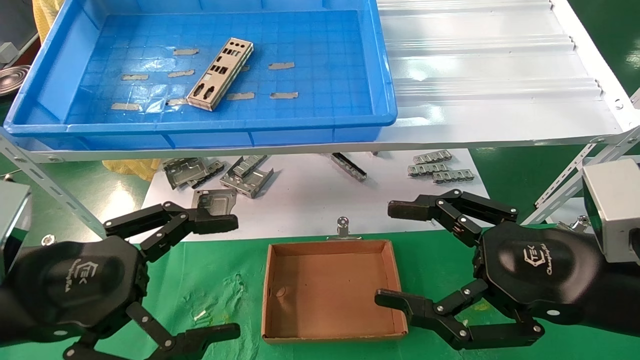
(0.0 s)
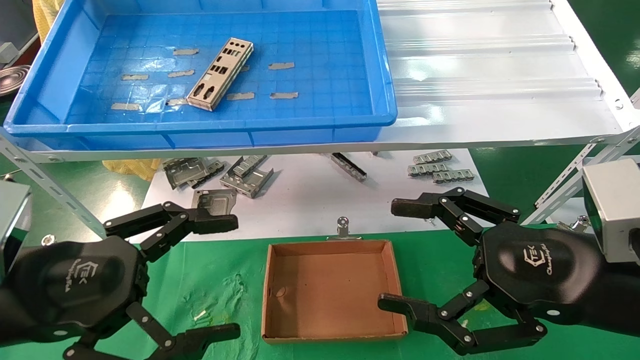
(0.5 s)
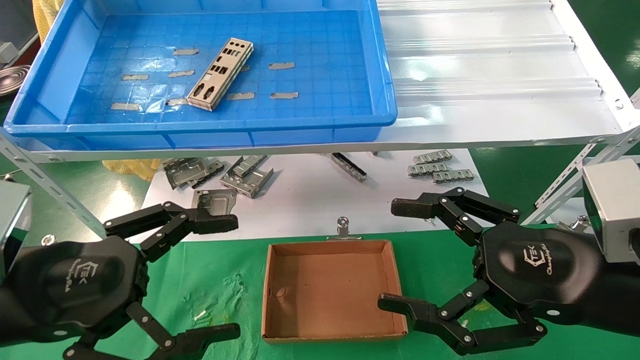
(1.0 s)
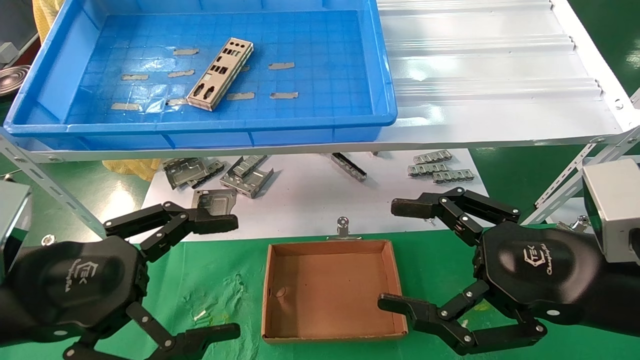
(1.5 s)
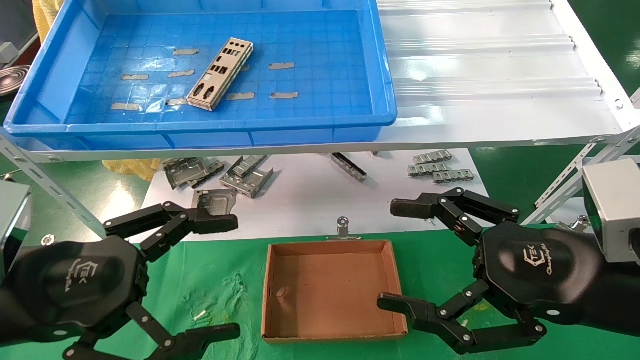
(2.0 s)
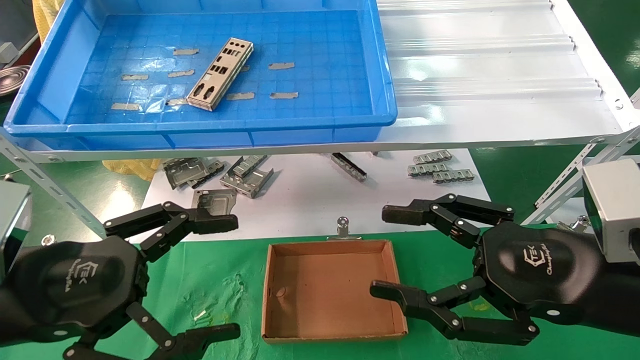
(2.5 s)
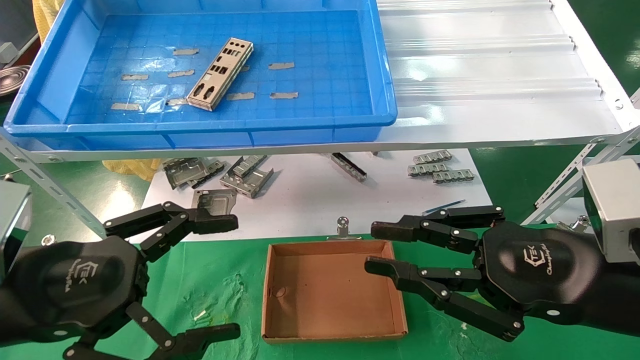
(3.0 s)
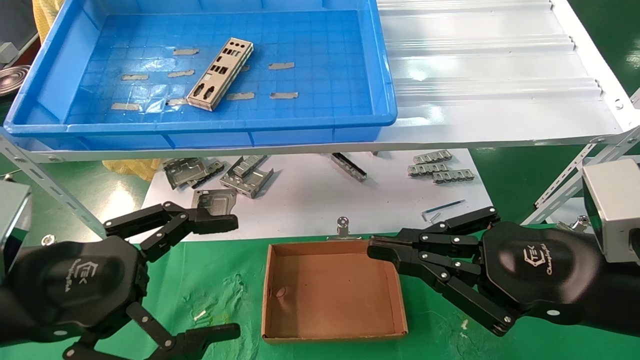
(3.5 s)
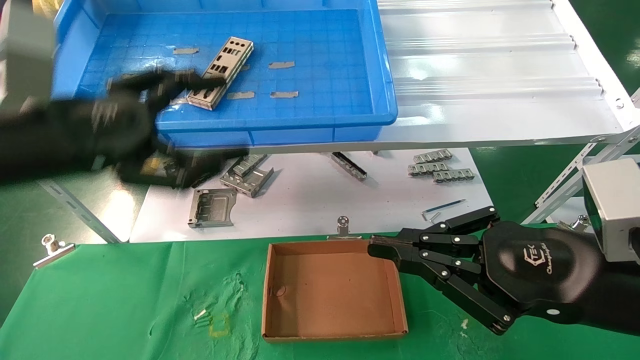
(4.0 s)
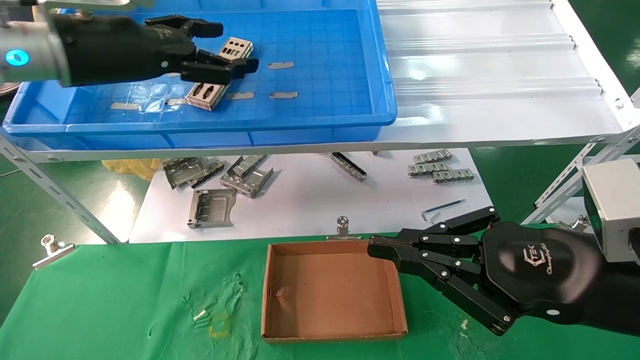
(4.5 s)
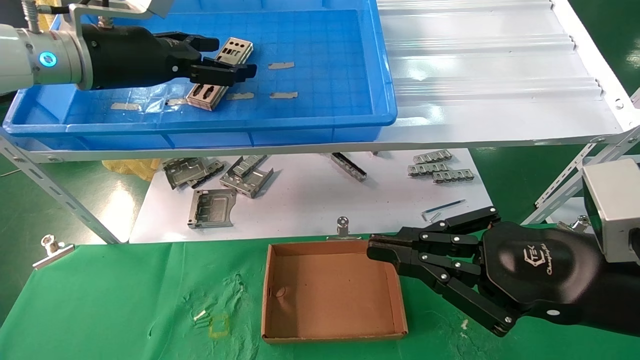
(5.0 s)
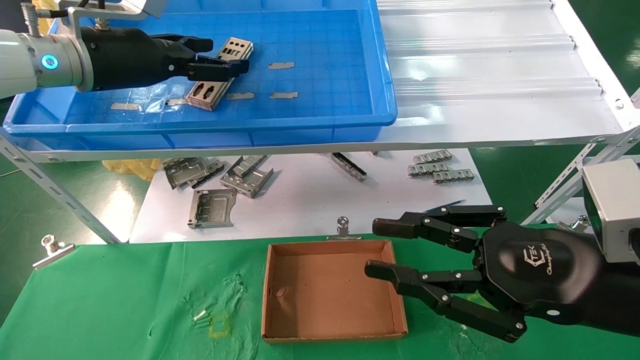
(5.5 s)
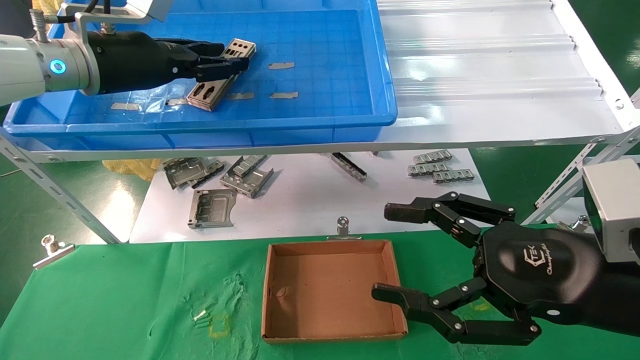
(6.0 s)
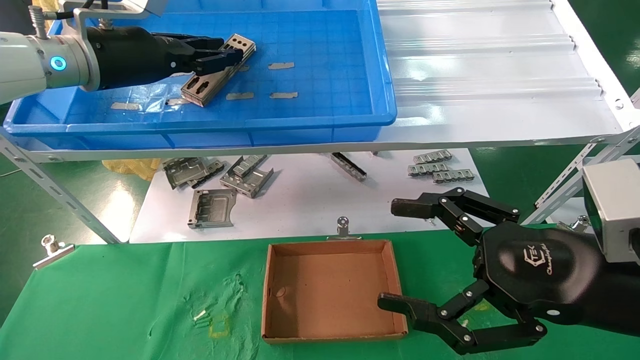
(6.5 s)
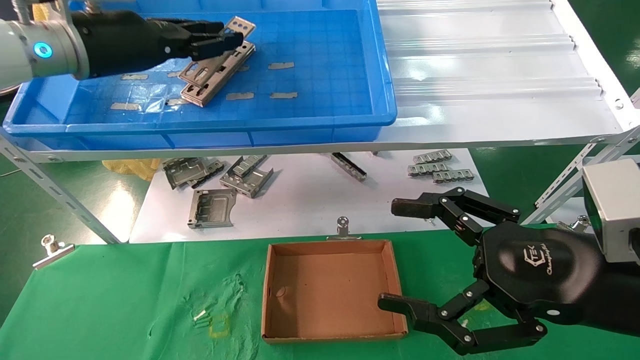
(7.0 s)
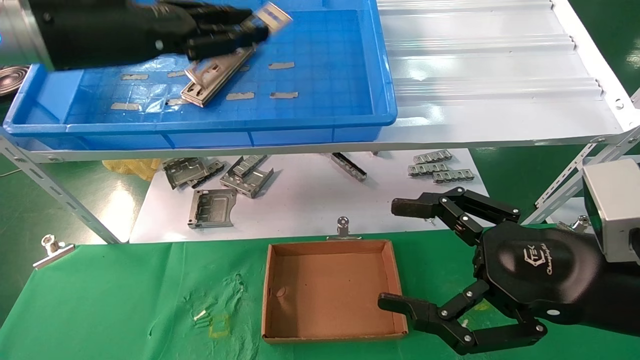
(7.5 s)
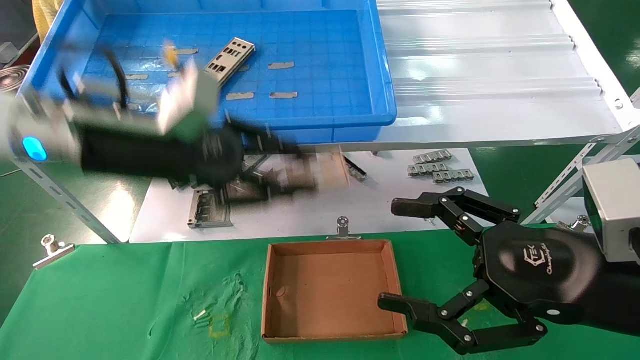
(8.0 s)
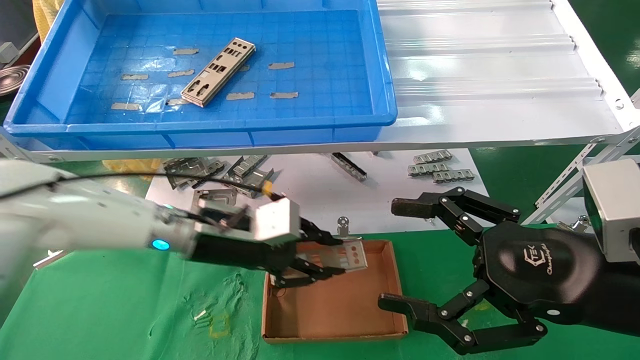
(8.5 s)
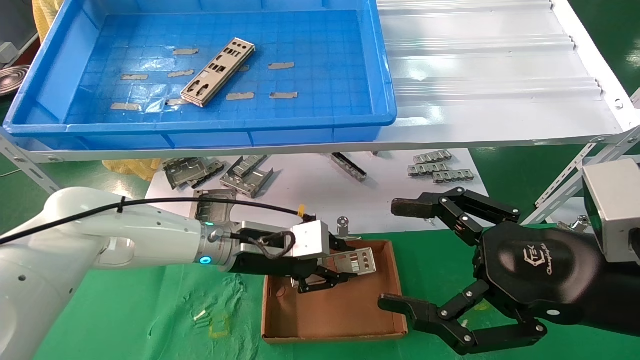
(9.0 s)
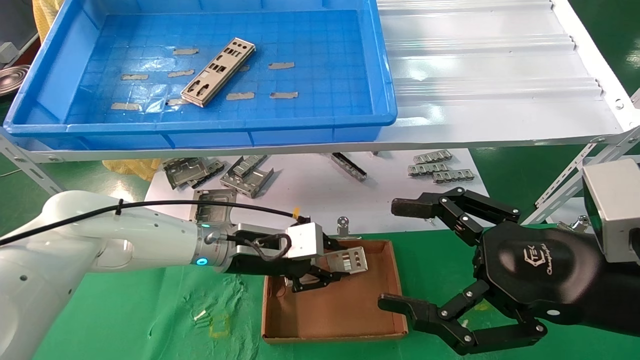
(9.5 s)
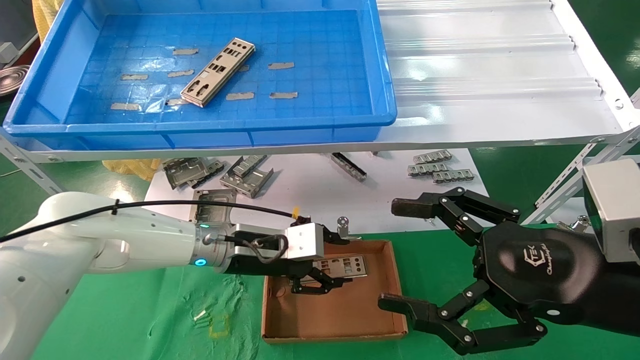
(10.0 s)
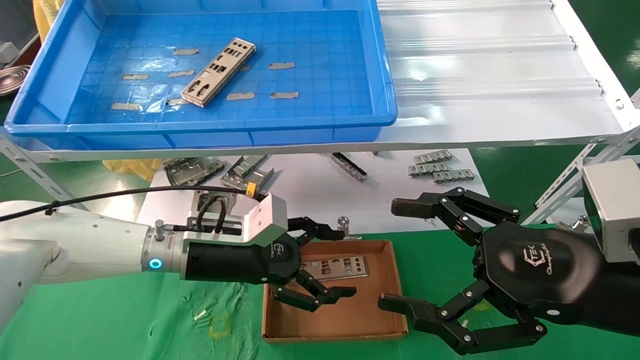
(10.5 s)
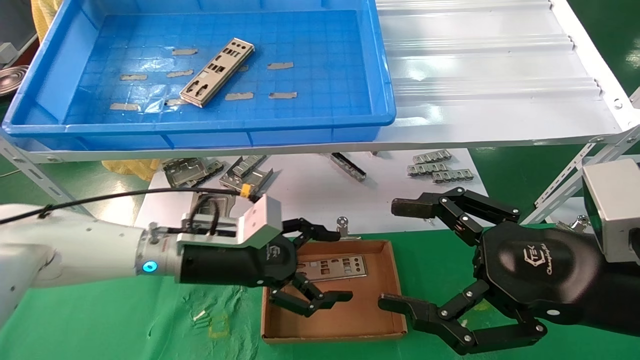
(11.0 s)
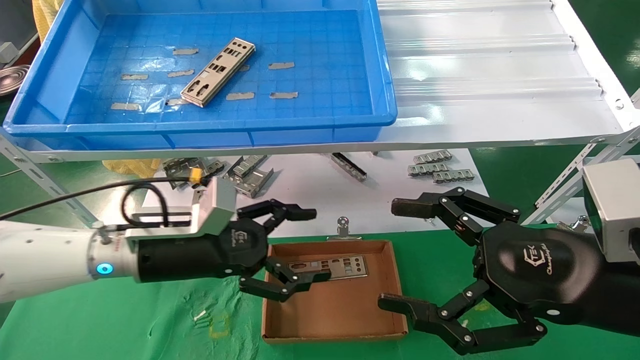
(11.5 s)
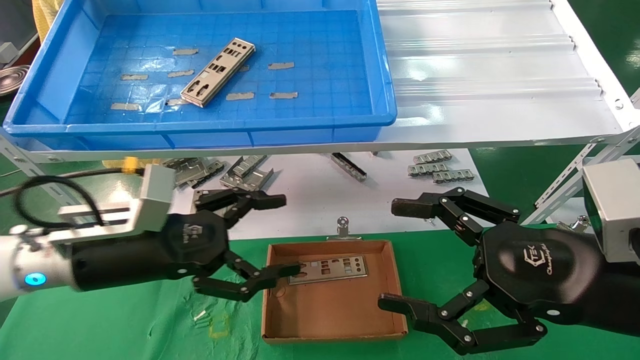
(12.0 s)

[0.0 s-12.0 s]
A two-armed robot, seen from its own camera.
Task of the whole recording: pick up the parts on the tray and put them in the cardboard box.
Step, 4.0 to 6.0 s: Pick up the IO bracket from the container box.
Step, 6.5 to 9.5 s: Place the IO bracket into the ingredient slot.
0.0 to 2.0 s: Neither gripper changes place.
2.0 to 4.0 s: The right gripper closes. Meanwhile the left gripper travels upward and forward by some 15 cm.
4.0 to 6.0 s: The right gripper opens, while the left gripper heads forward and upward, covering approximately 15 cm, and closes up.
6.0 to 8.0 s: The left gripper shifts some 15 cm backward, downward and to the right, and closes its fingers.
8.0 to 10.0 s: The left gripper moves downward, to the right and forward, some 20 cm.
10.0 to 12.0 s: The left gripper travels to the left, backward and upward by roughly 15 cm, and opens its fingers.

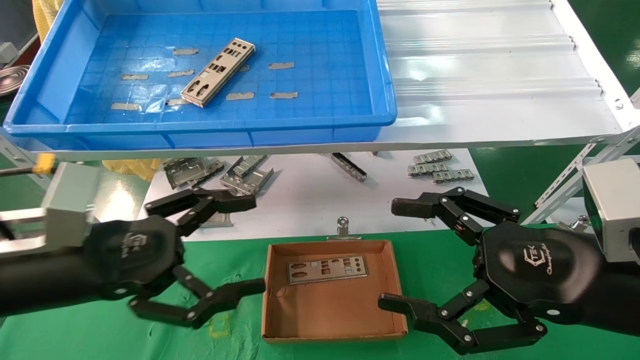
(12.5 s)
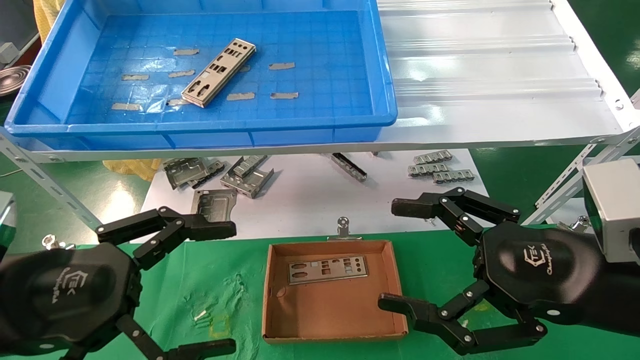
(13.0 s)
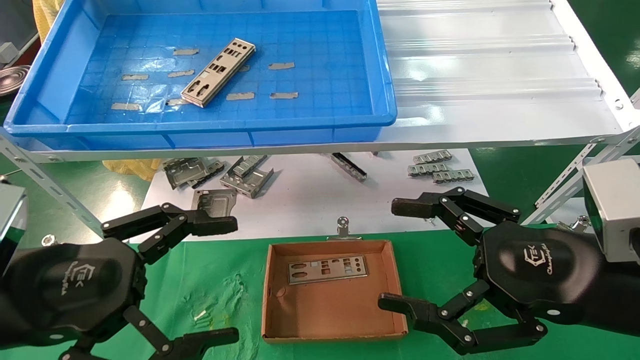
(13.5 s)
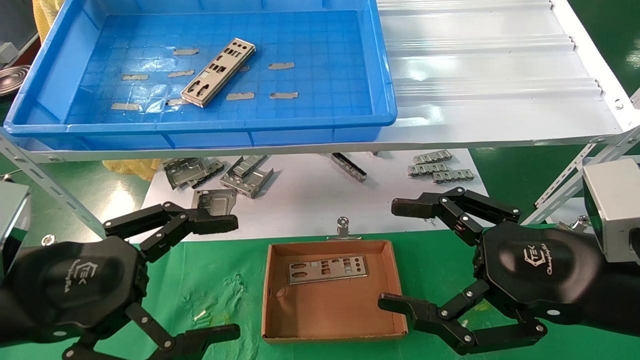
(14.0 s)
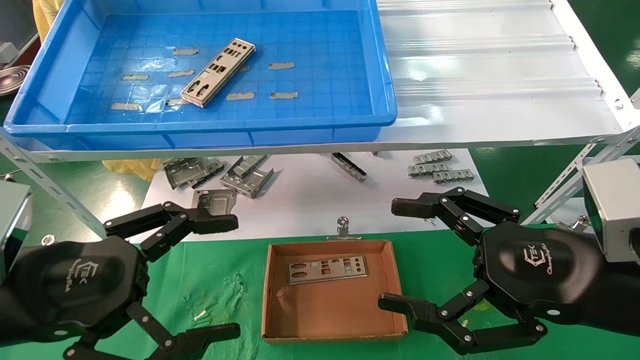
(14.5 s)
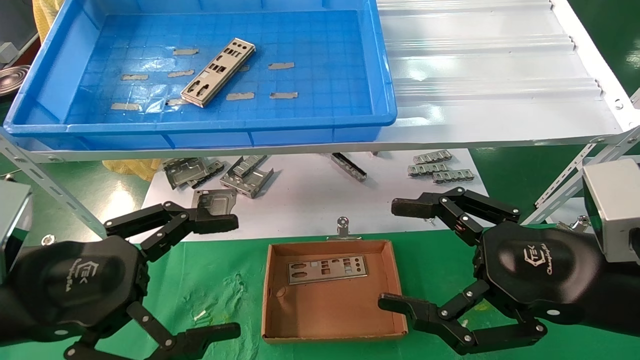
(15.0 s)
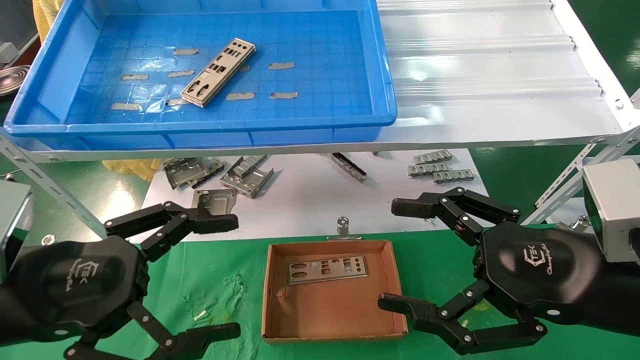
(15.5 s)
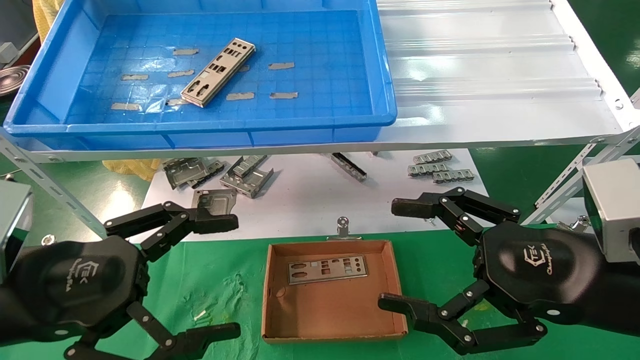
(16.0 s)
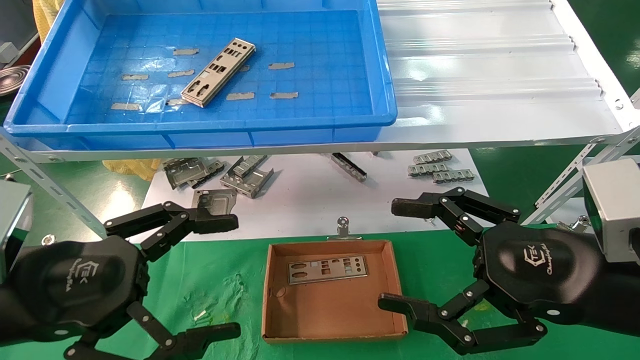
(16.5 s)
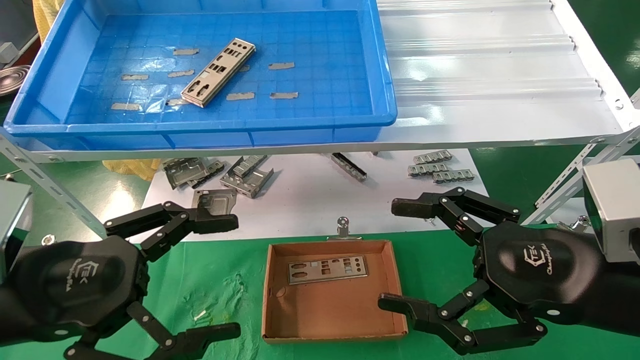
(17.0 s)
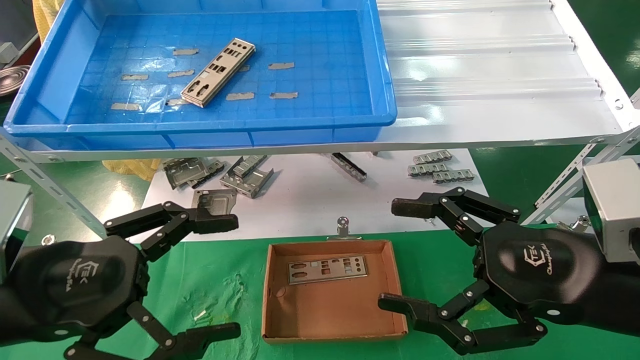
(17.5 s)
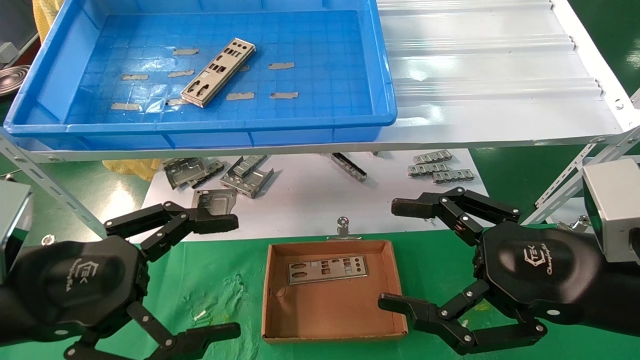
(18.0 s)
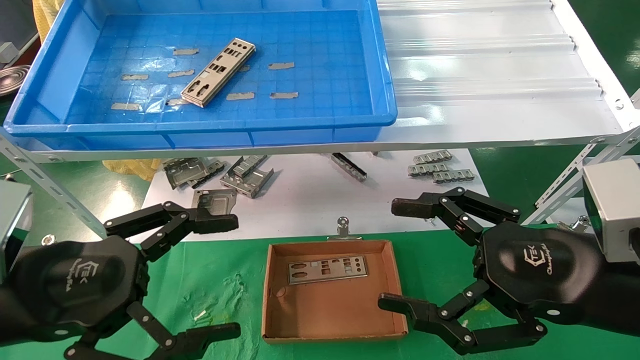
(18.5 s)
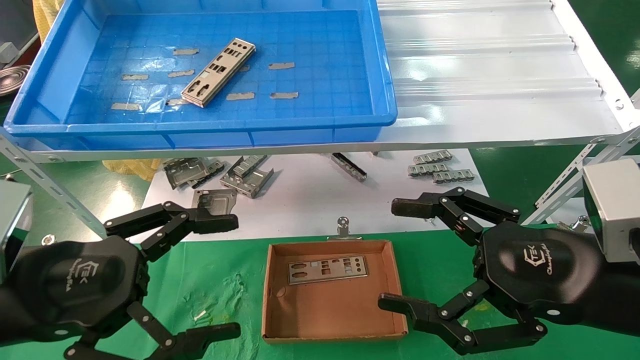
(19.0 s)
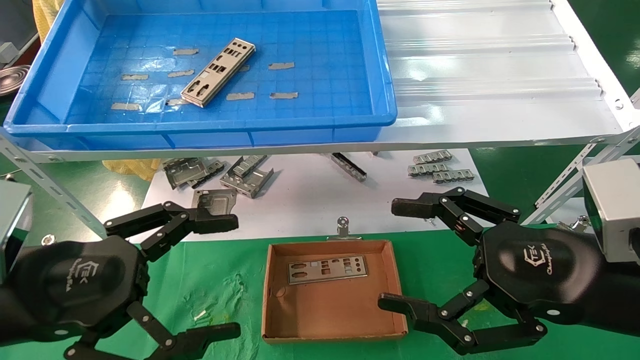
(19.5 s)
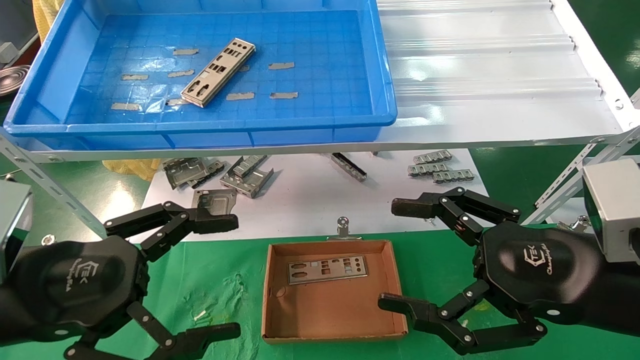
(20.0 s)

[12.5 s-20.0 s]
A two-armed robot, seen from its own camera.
Task of the whole recording: pick up the parts on the tray and put them in the cardboard box.
12.5 to 14.5 s: The left gripper heads backward, covering some 5 cm.
14.5 to 20.0 s: Both grippers stay put.
